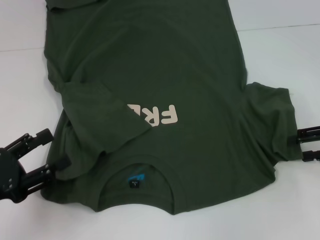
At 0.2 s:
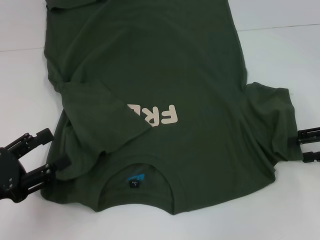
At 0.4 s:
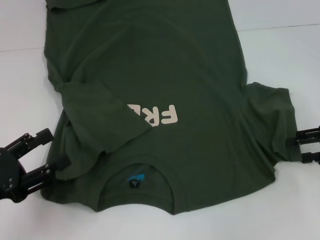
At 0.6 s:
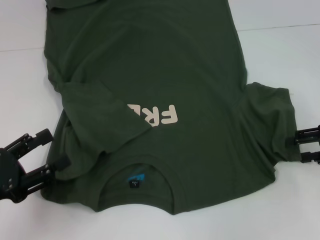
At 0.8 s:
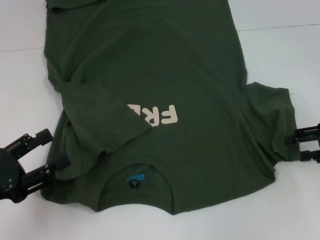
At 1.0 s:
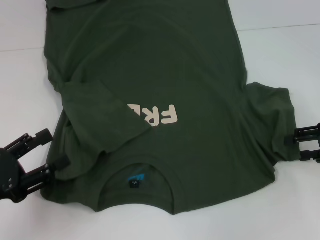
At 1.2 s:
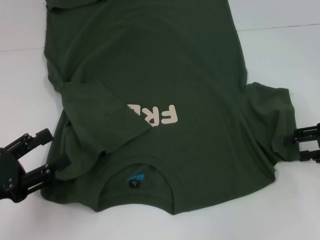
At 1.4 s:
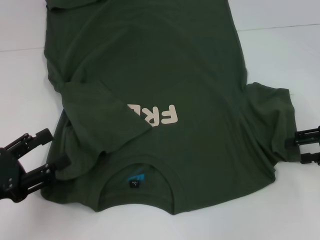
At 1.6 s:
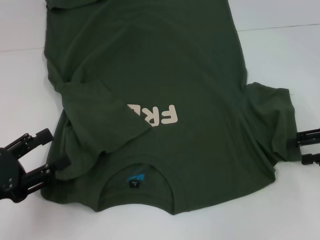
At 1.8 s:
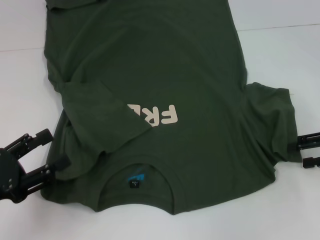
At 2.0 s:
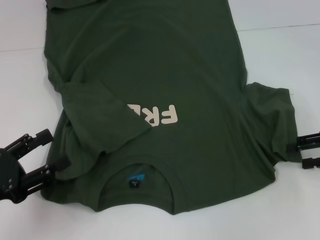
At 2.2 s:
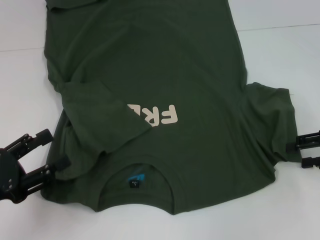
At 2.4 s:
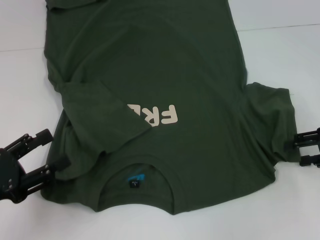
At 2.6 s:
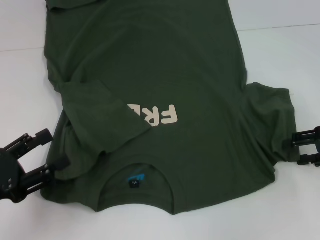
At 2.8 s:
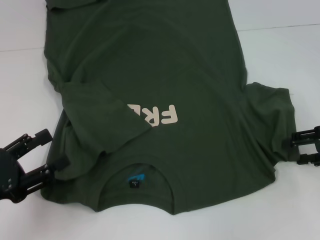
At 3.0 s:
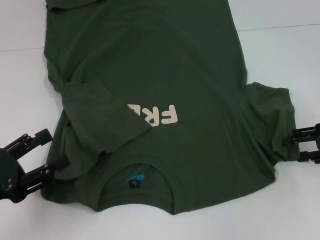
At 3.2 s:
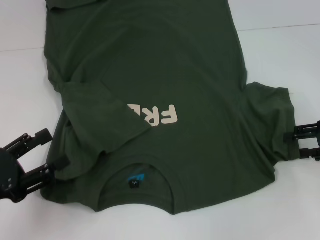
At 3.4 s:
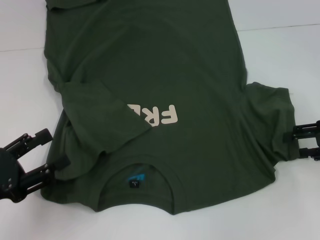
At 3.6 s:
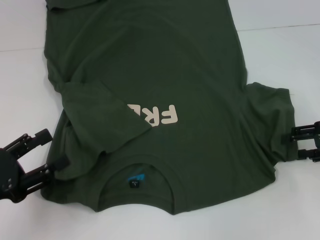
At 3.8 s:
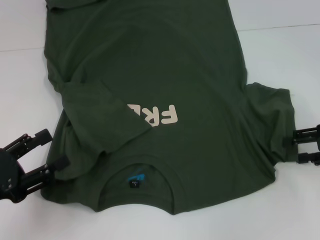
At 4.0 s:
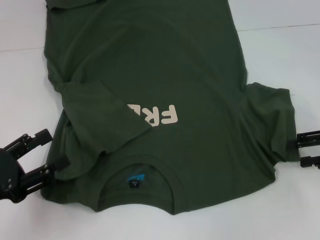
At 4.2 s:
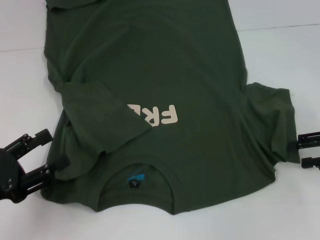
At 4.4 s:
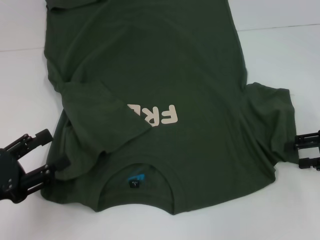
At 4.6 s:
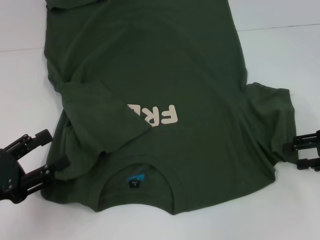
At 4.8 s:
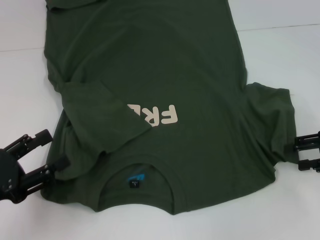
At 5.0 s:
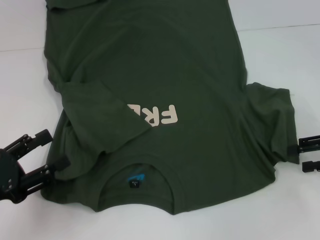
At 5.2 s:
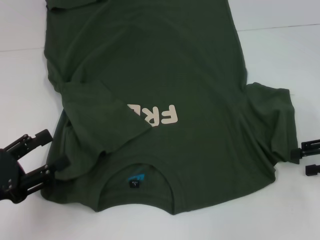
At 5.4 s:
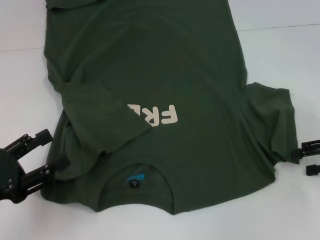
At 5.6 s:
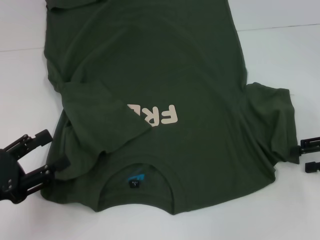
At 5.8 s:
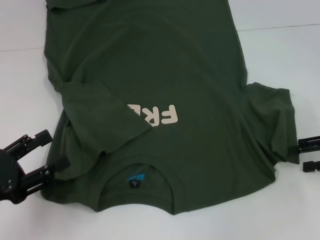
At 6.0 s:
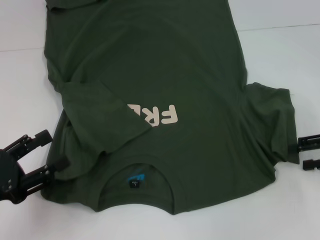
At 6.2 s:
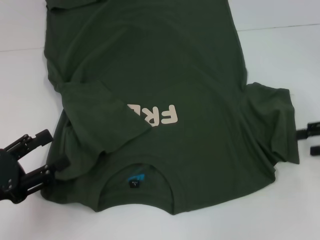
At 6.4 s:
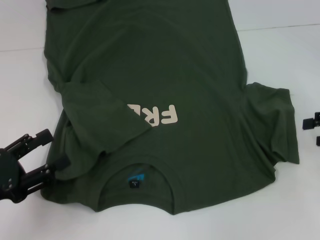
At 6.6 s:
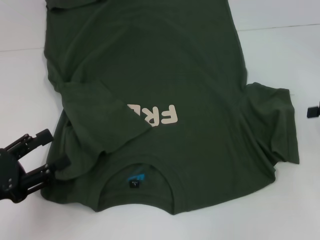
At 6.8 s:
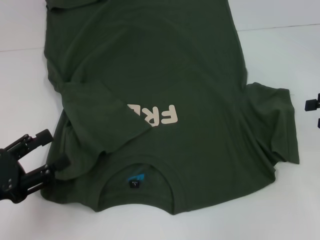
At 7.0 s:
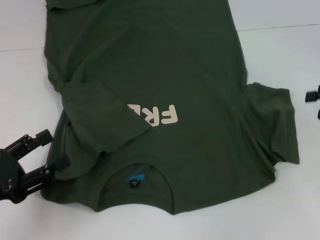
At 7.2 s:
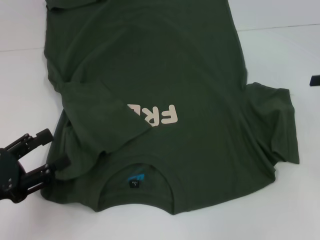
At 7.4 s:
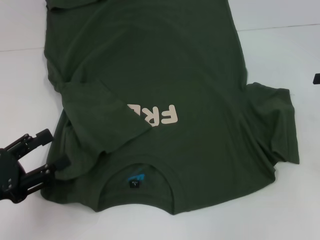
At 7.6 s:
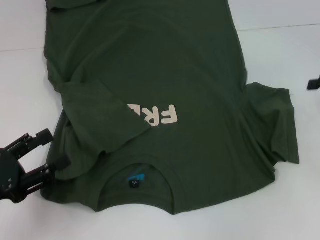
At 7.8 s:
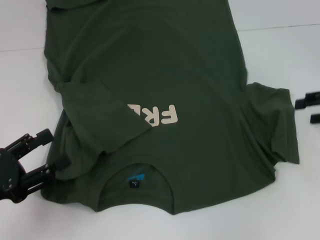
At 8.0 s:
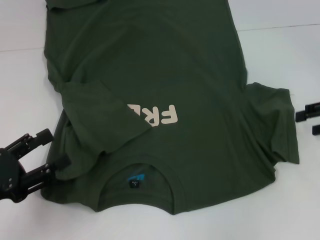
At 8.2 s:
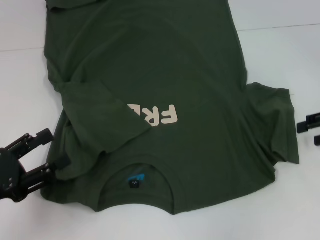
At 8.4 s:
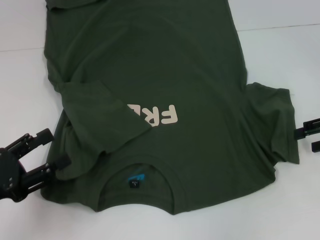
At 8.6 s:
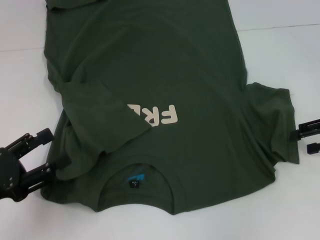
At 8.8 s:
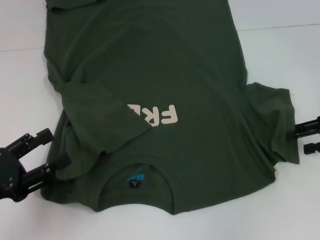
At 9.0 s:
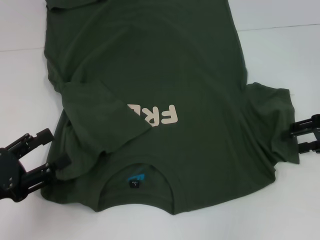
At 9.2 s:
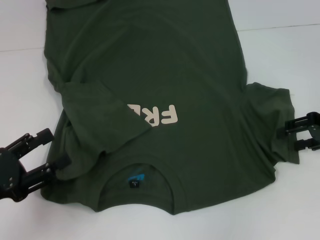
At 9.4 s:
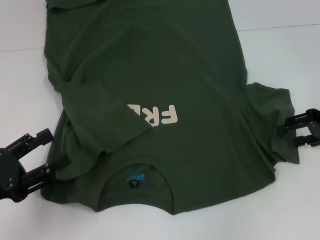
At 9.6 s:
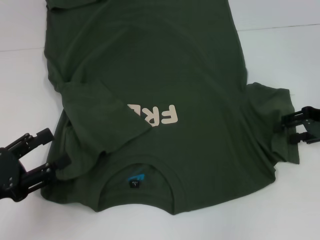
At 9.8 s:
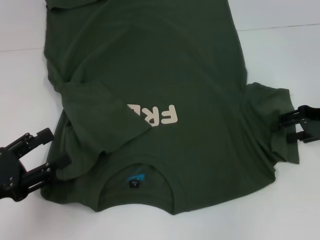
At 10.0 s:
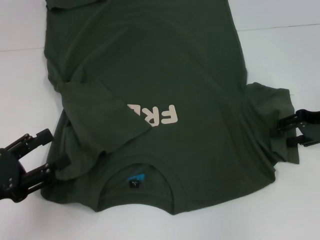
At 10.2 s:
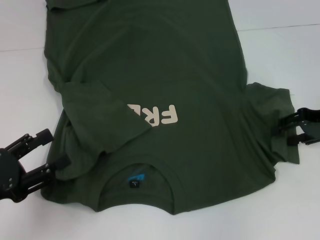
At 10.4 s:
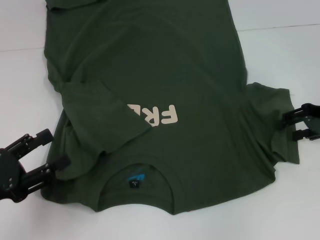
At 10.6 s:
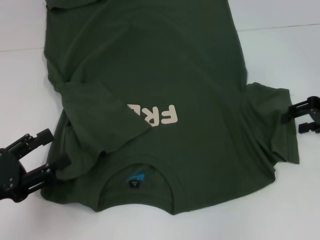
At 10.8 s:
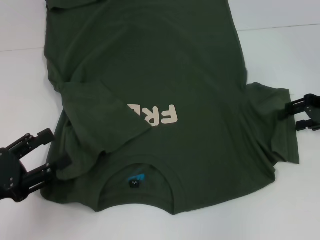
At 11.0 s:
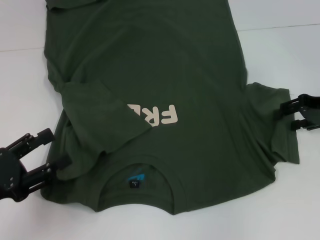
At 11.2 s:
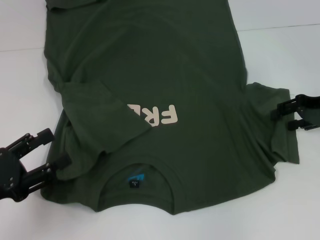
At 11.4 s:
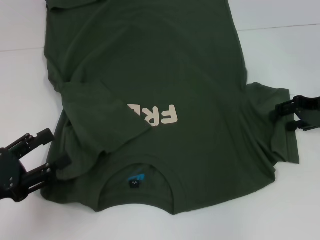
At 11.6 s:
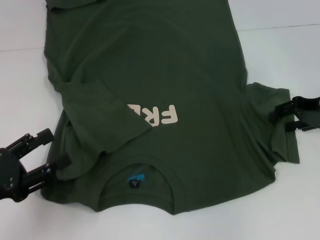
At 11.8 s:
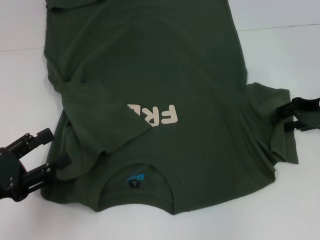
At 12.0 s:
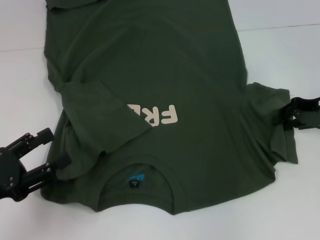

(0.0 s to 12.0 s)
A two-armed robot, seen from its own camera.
0.0 s - 4.4 s: Both grippers stay about where they are.
4.4 s - 6.0 s: Neither gripper changes place.
6.0 s - 7.6 s: The right gripper shifts by roughly 5 cm.
7.6 s - 9.0 s: The right gripper shifts by approximately 5 cm.
9.0 s - 12.0 s: The grippers make only small movements.

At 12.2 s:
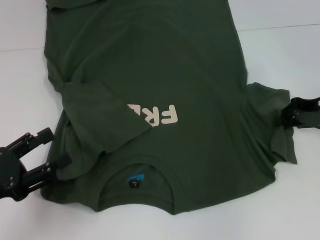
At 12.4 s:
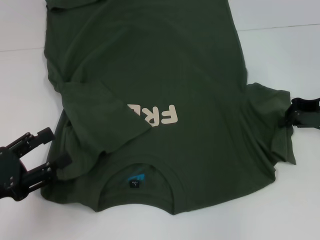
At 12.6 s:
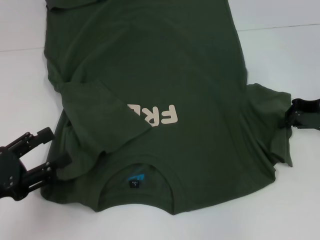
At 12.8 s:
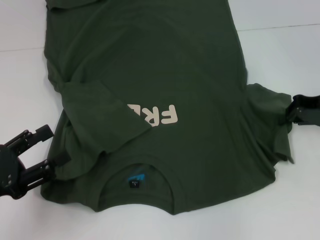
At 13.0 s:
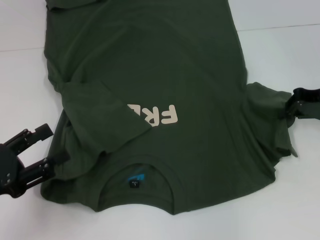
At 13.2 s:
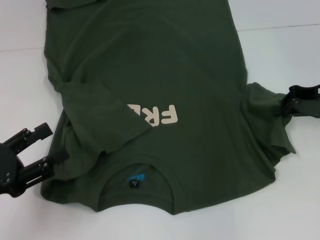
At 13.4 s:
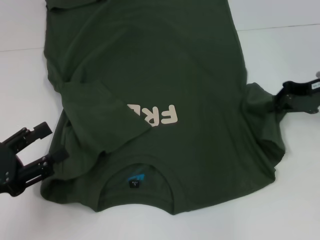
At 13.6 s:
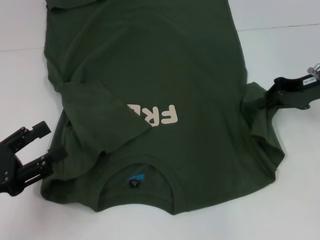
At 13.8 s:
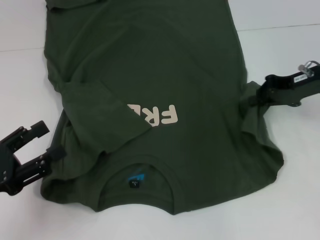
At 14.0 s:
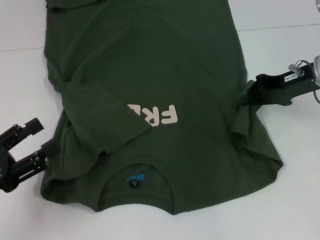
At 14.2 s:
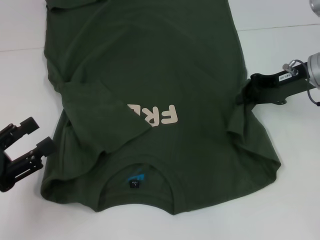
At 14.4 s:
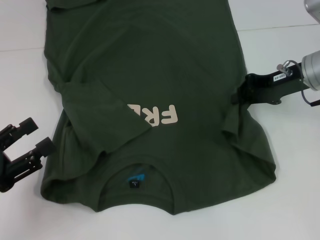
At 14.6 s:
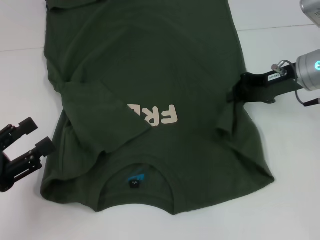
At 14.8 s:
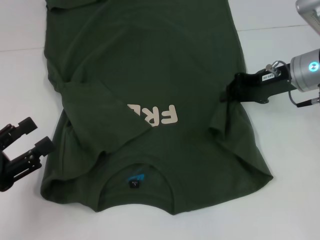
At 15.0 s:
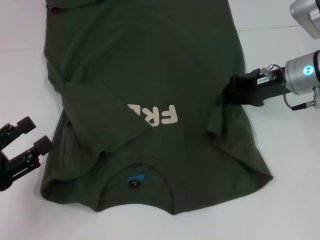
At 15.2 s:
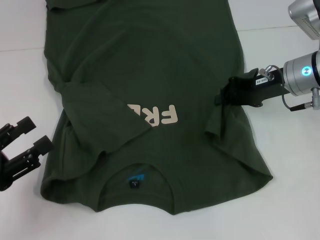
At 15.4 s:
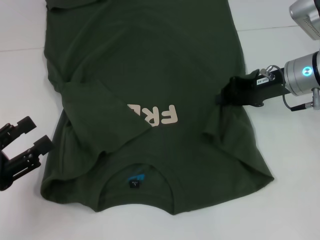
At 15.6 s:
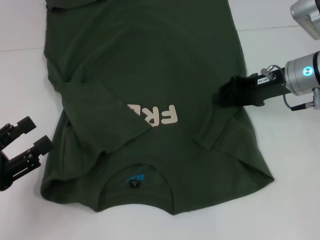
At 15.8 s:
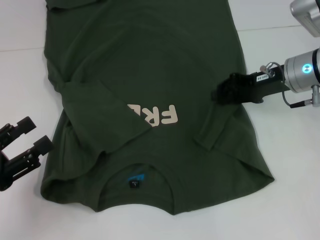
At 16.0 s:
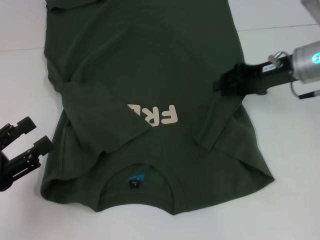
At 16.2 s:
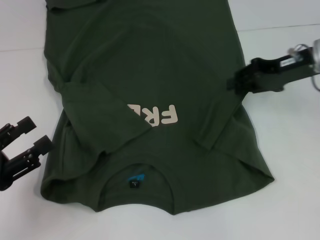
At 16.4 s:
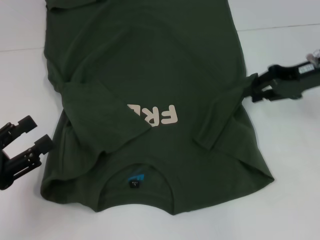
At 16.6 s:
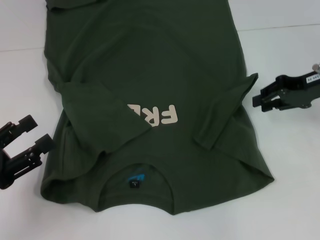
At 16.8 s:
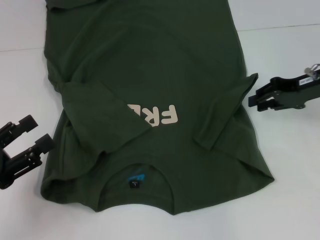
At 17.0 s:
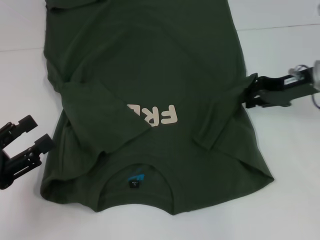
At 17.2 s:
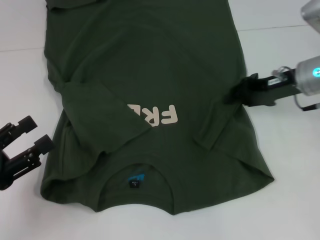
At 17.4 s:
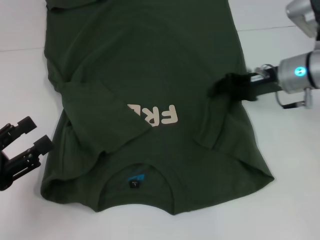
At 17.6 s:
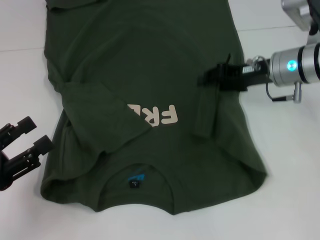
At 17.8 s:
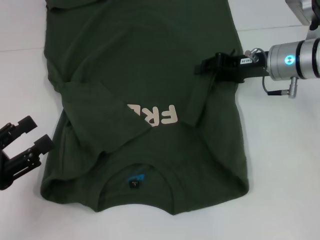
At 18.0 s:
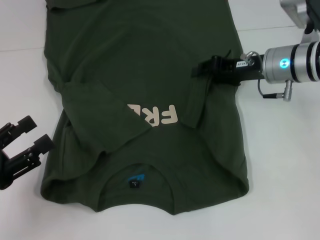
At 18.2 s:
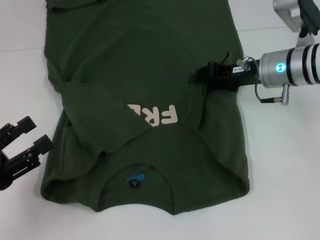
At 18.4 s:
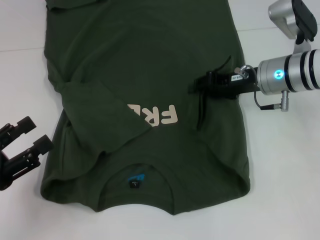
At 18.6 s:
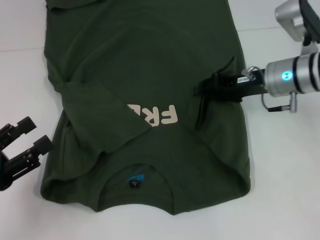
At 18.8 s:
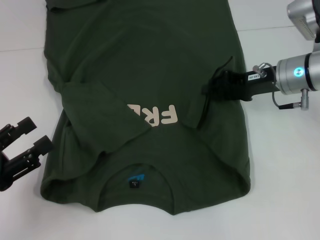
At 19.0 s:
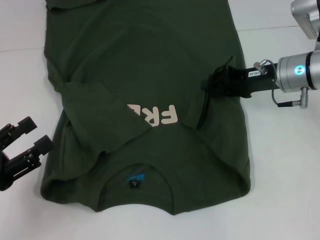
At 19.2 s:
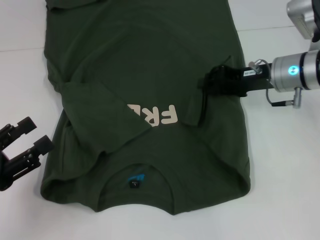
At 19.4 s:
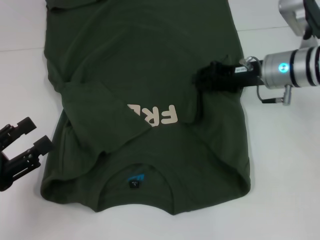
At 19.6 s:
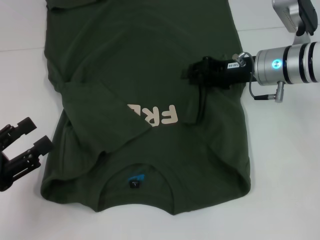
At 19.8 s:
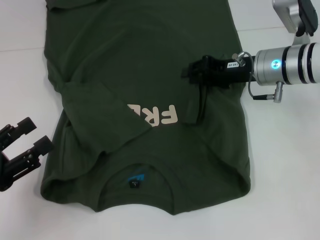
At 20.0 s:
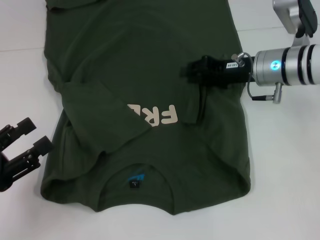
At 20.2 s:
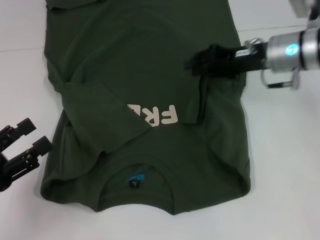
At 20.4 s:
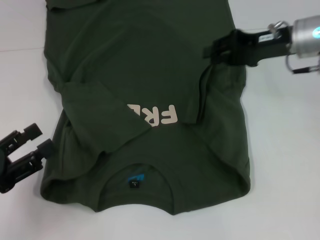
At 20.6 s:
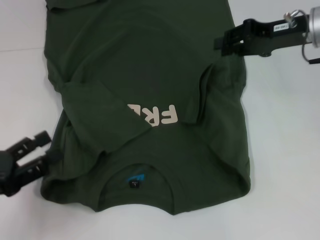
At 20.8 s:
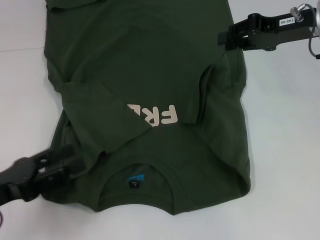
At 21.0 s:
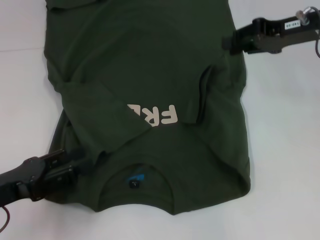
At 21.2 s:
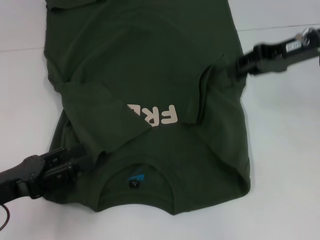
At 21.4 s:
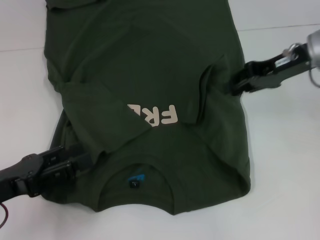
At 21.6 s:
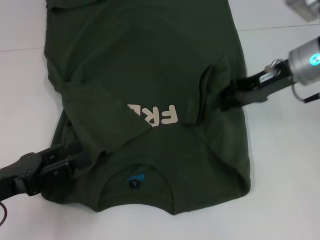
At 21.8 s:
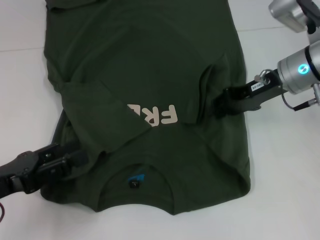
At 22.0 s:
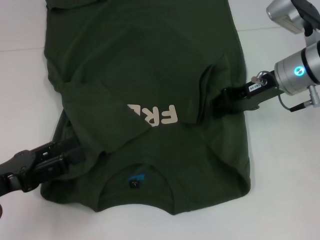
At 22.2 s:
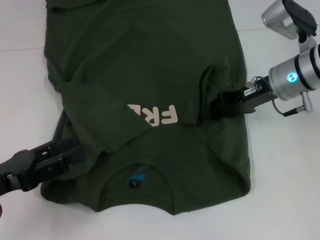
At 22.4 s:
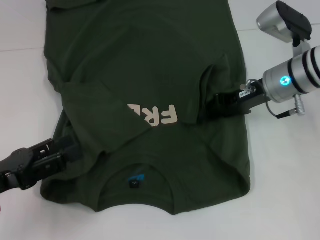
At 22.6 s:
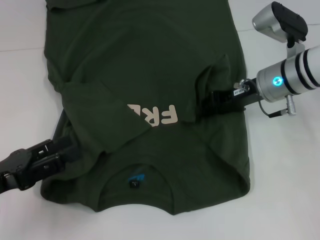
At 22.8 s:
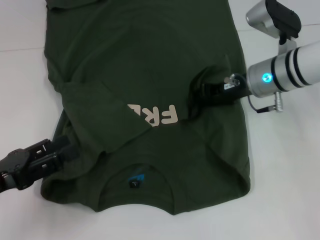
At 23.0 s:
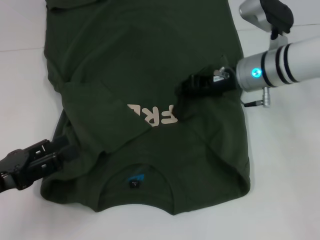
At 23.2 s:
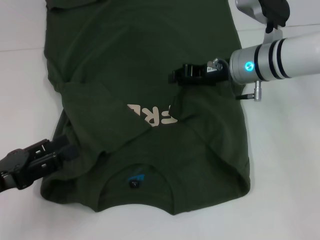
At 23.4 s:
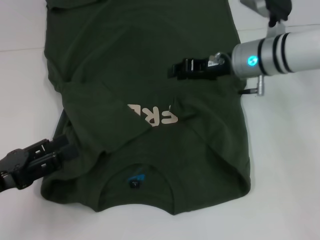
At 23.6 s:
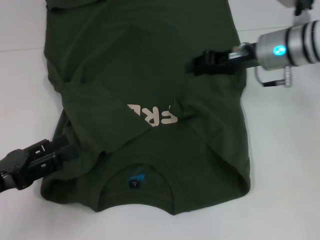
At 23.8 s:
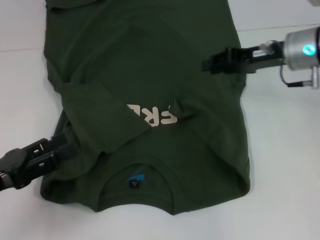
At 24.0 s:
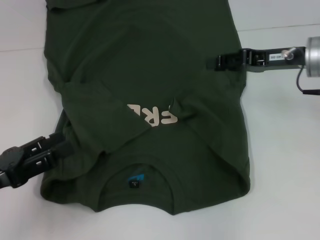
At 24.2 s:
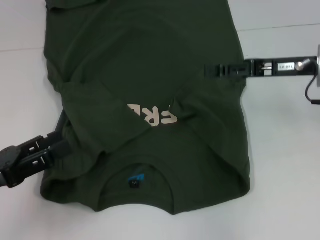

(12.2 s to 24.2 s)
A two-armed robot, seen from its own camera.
Step, 12.2 s - 23.6 s: Fold the bottom right sleeve with your right hand.
12.2 s - 13.8 s: The right gripper moves some 5 cm, and closes up.
13.8 s - 15.2 s: The right gripper changes place by roughly 5 cm.
15.2 s - 16.6 s: The right gripper shifts approximately 5 cm to the right.
16.6 s - 18.2 s: The right gripper heads to the left, covering approximately 10 cm.
18.2 s - 19.8 s: There are only small adjustments of the grippers.
19.8 s - 21.2 s: The right gripper travels upward and to the right by about 10 cm.
21.2 s - 22.6 s: The right gripper shifts approximately 10 cm downward and to the left.
22.6 s - 24.2 s: The right gripper heads to the right, covering approximately 5 cm.
